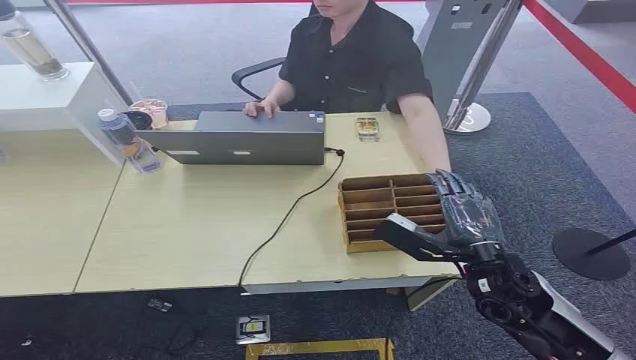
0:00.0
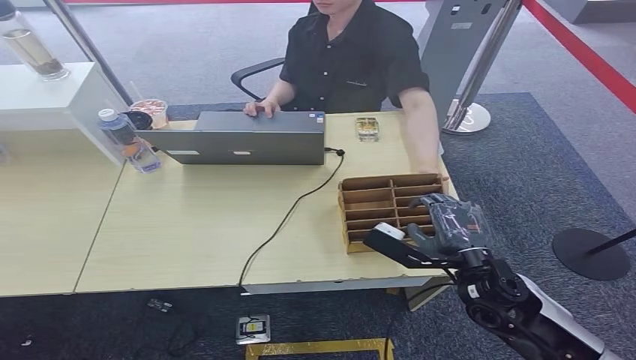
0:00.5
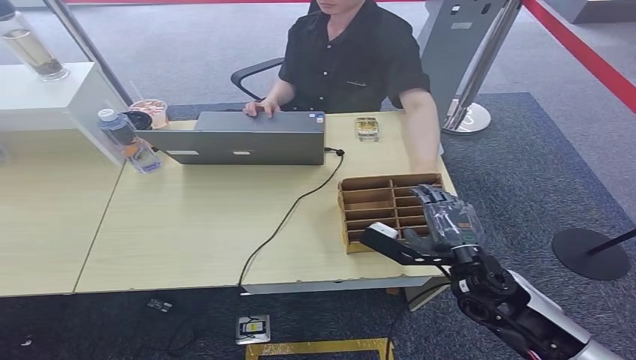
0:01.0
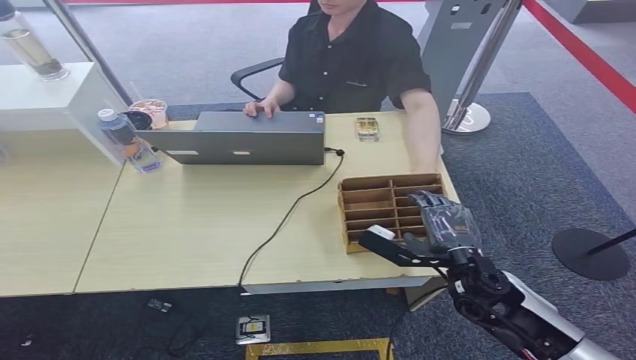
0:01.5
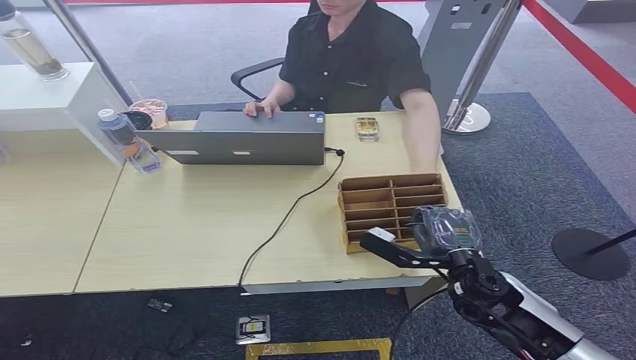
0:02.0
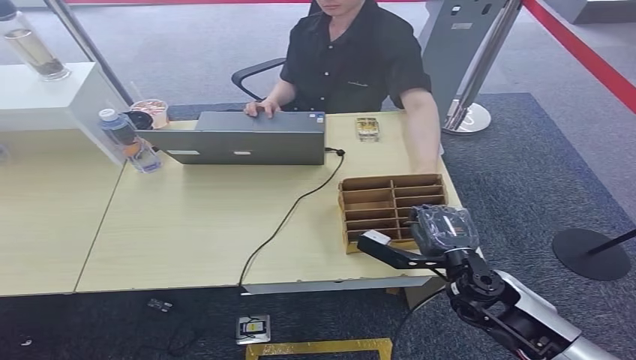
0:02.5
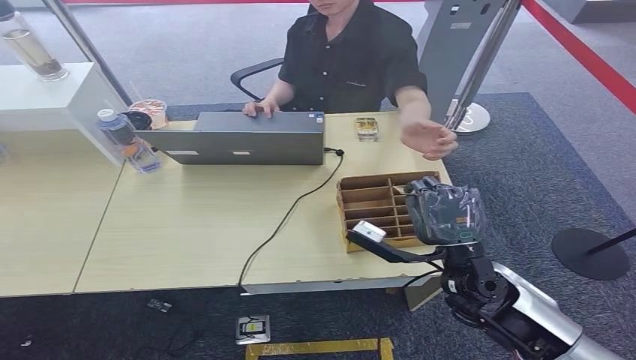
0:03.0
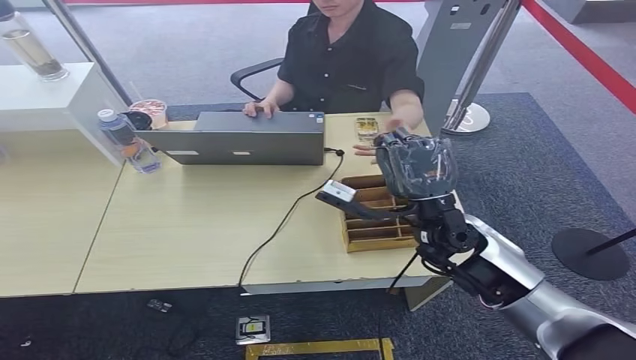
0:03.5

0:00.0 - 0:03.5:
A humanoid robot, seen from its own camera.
Step, 0:00.0 - 0:02.5: Pick up the room card from the card holder.
0:02.0 - 0:03.5: The right hand shifts about 15 cm upward, forward and to the left.
